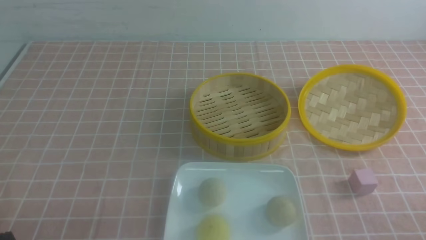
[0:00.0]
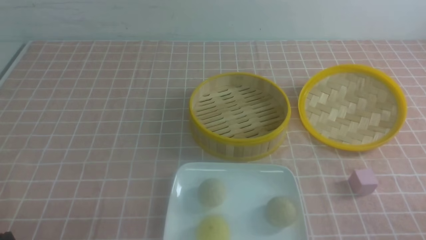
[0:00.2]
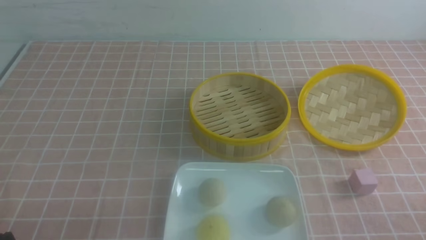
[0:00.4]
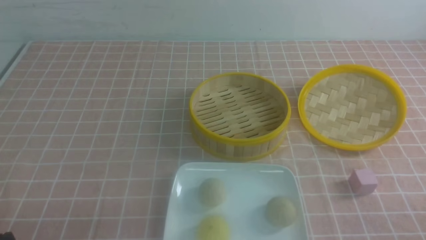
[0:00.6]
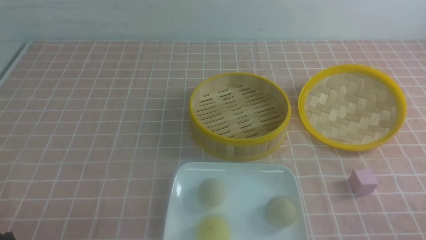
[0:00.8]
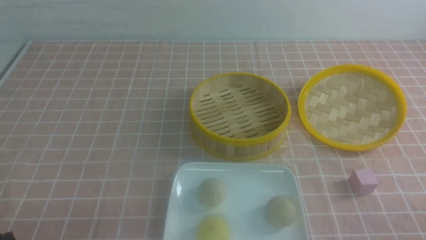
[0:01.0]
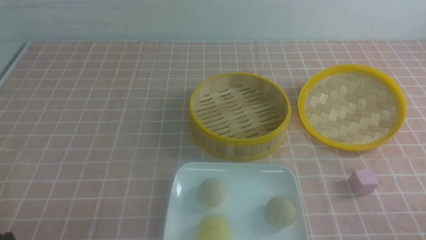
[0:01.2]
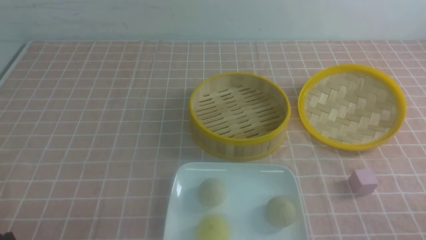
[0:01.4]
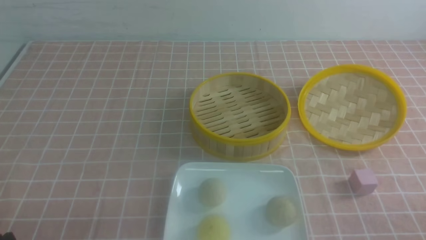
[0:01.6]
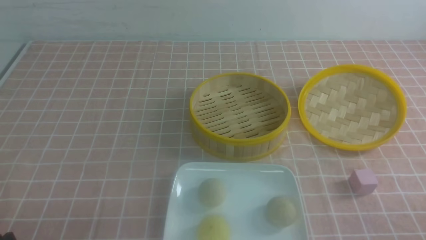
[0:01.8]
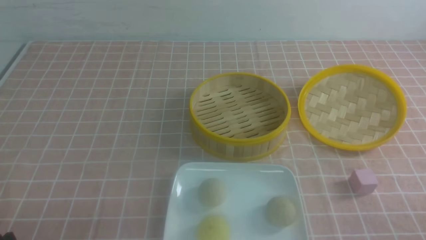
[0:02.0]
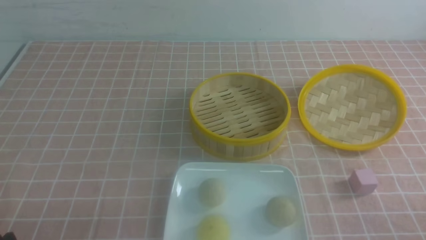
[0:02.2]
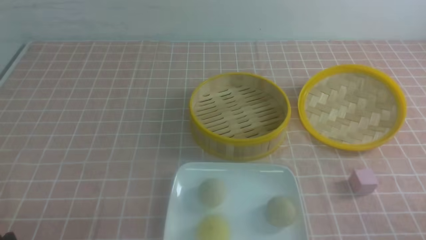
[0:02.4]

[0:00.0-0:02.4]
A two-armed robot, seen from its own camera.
0:00.0 to 0:02.4: The two grippers keep their place.

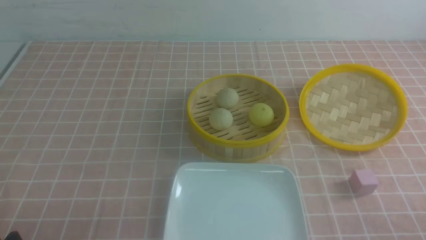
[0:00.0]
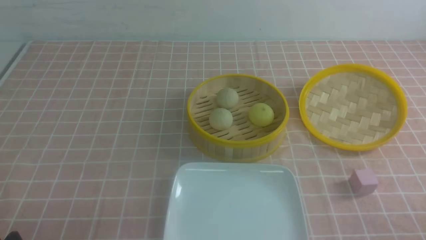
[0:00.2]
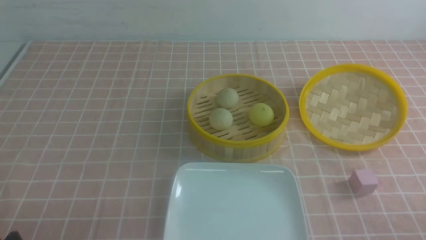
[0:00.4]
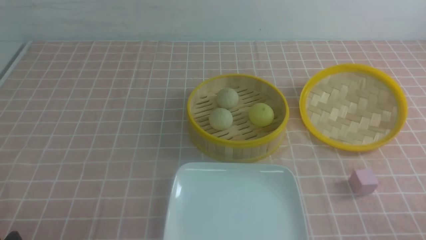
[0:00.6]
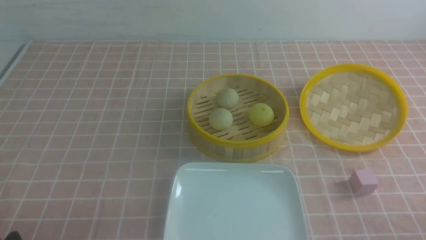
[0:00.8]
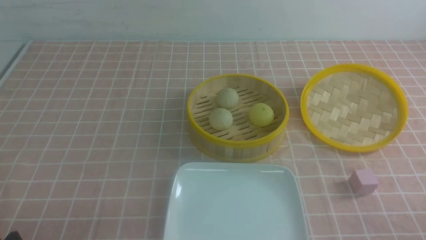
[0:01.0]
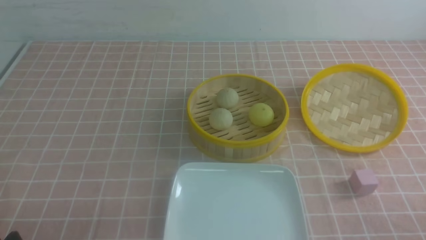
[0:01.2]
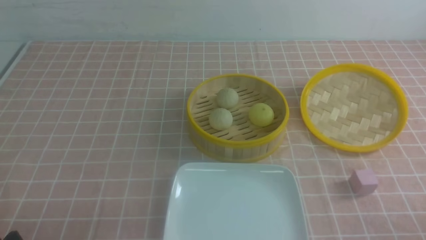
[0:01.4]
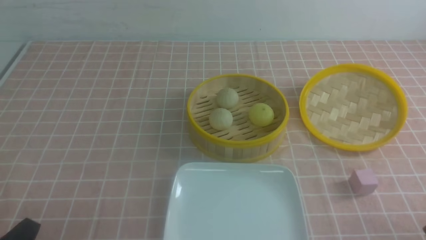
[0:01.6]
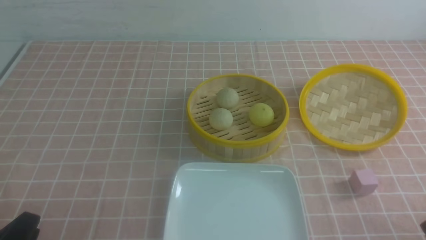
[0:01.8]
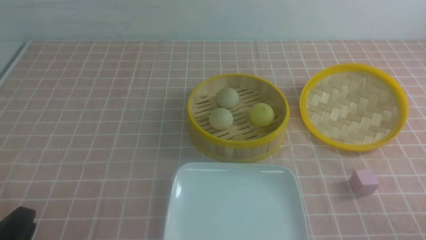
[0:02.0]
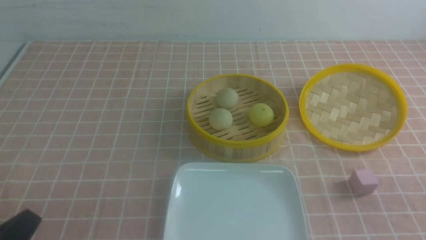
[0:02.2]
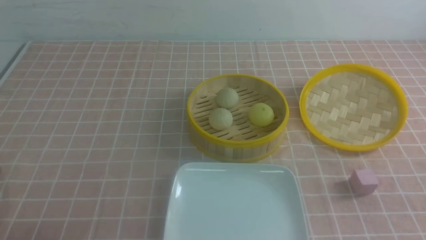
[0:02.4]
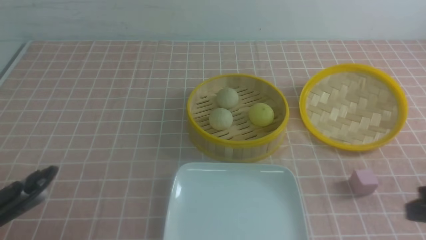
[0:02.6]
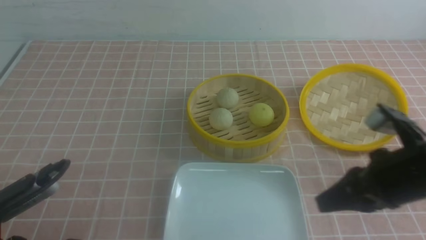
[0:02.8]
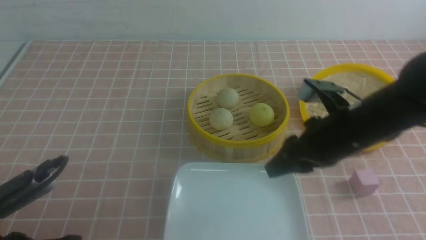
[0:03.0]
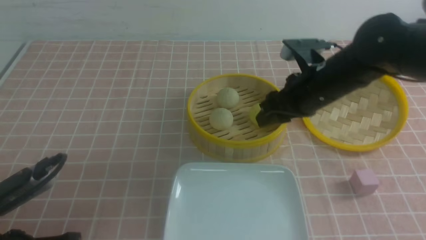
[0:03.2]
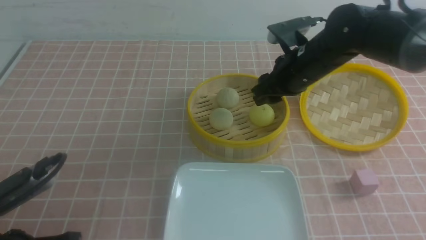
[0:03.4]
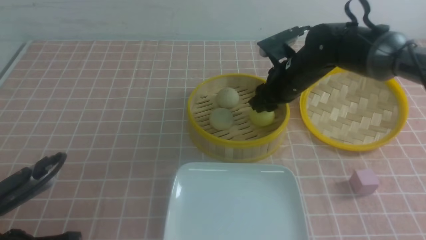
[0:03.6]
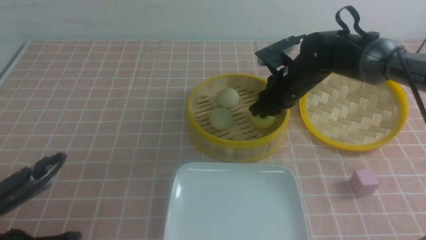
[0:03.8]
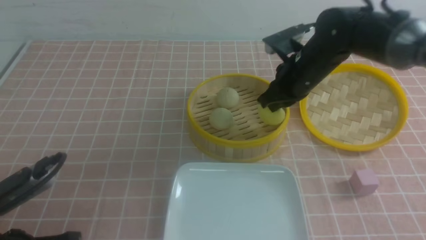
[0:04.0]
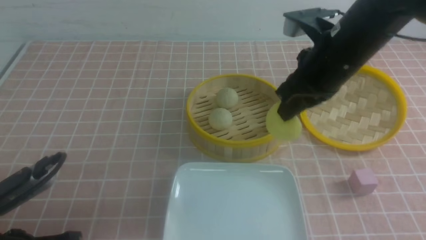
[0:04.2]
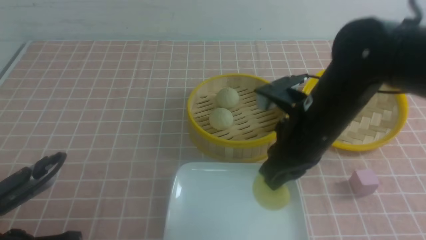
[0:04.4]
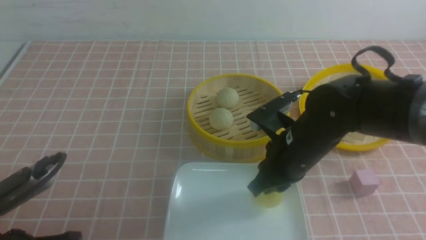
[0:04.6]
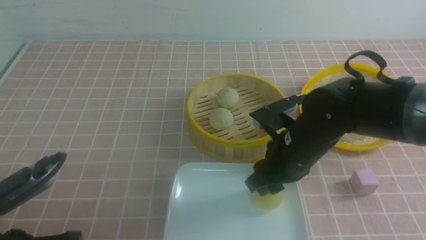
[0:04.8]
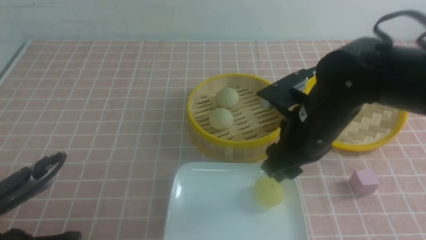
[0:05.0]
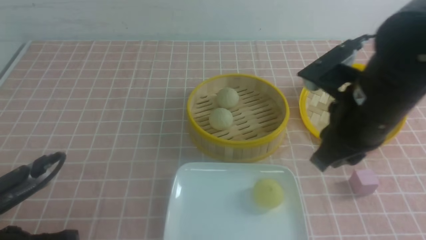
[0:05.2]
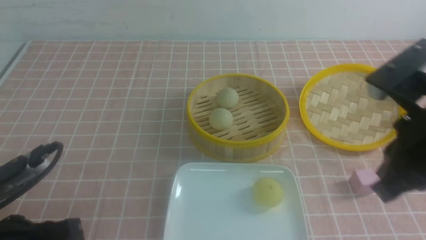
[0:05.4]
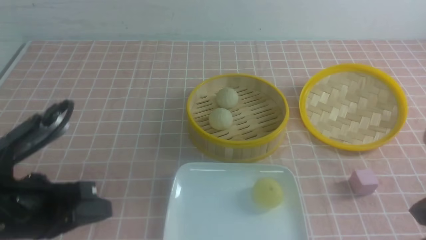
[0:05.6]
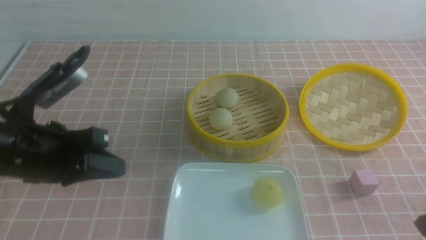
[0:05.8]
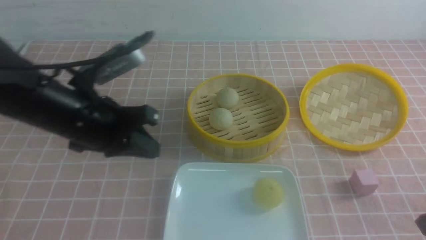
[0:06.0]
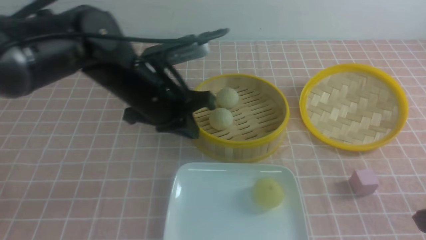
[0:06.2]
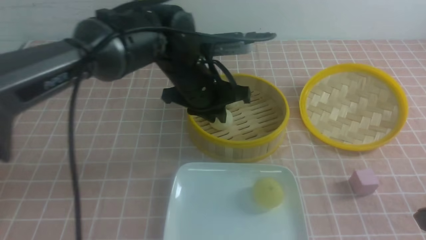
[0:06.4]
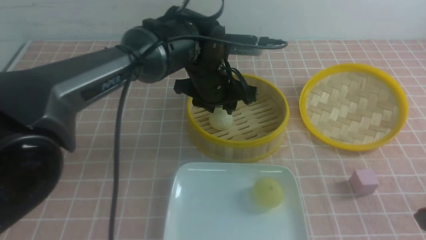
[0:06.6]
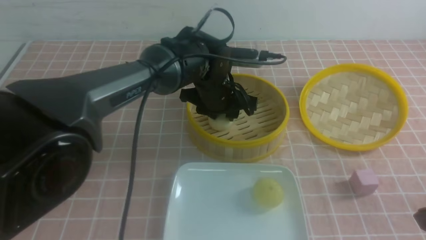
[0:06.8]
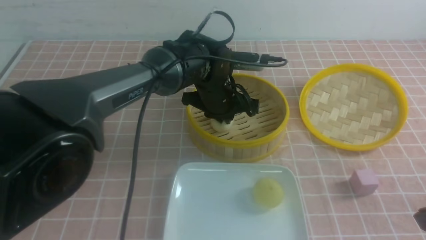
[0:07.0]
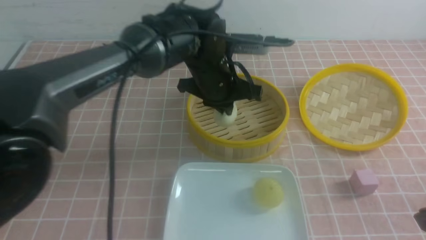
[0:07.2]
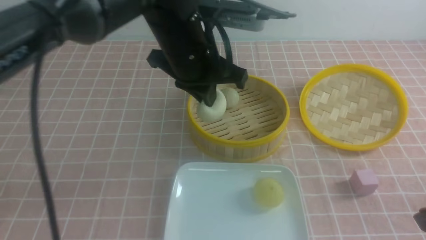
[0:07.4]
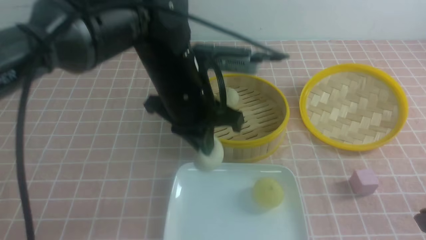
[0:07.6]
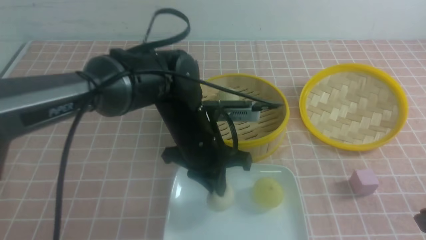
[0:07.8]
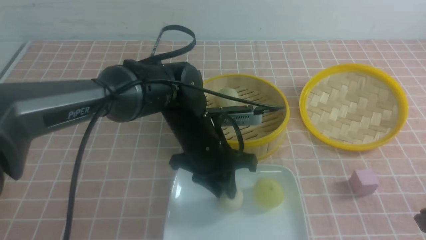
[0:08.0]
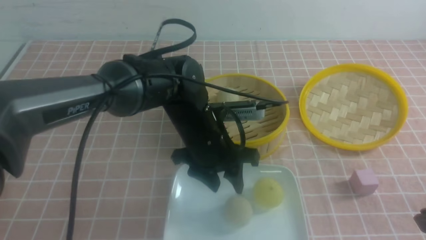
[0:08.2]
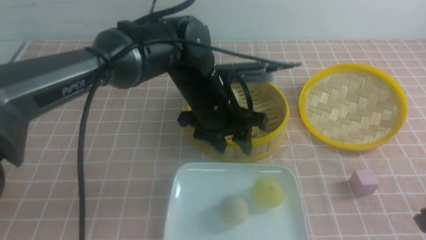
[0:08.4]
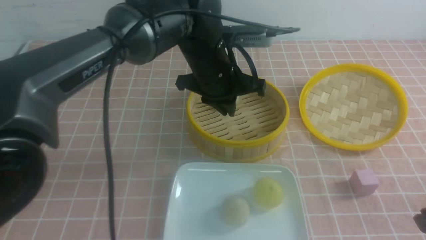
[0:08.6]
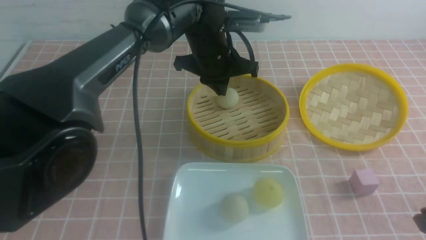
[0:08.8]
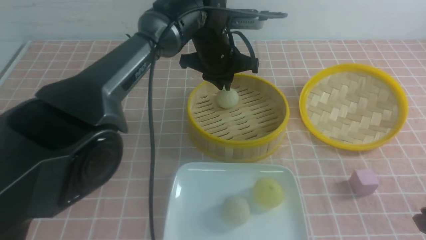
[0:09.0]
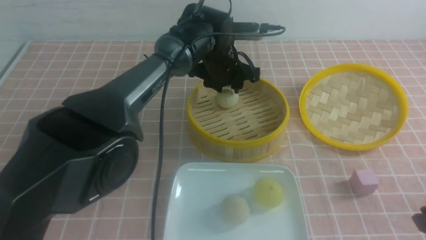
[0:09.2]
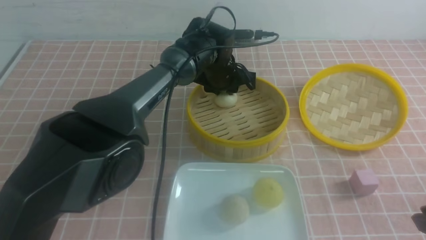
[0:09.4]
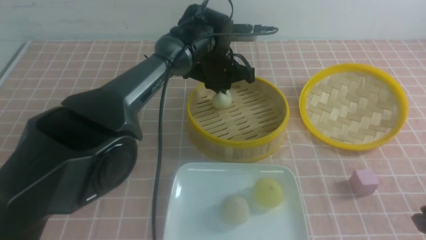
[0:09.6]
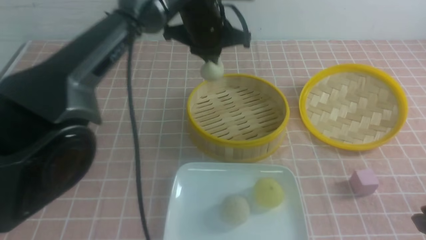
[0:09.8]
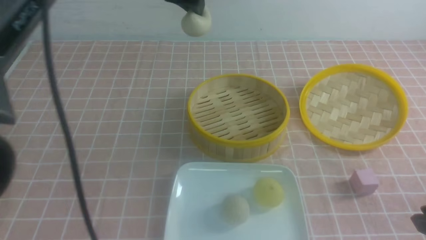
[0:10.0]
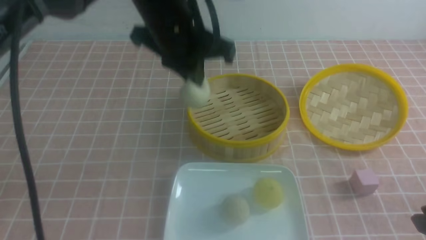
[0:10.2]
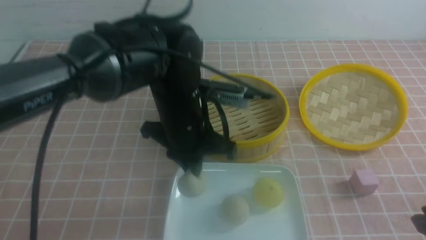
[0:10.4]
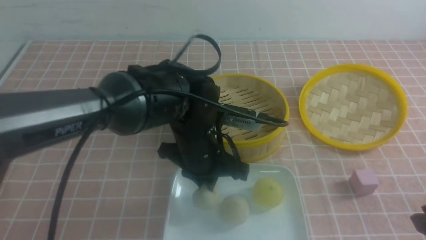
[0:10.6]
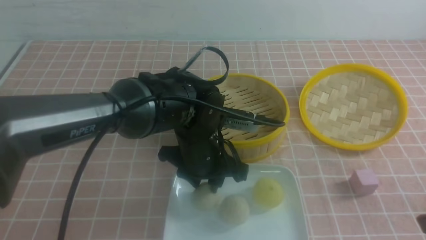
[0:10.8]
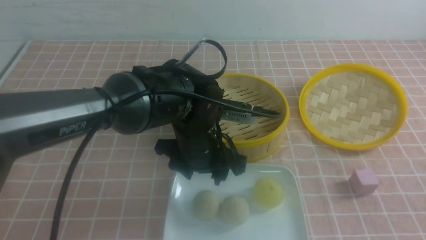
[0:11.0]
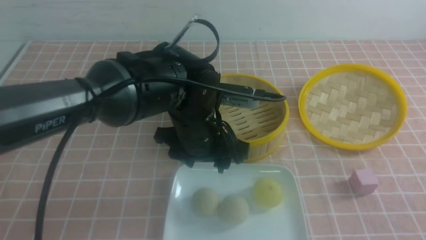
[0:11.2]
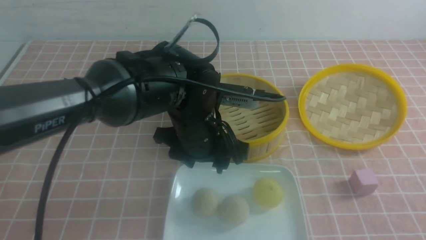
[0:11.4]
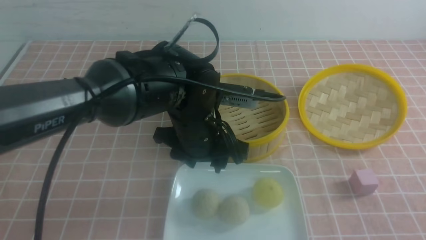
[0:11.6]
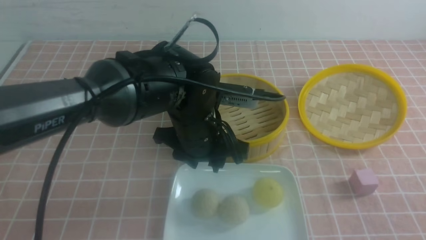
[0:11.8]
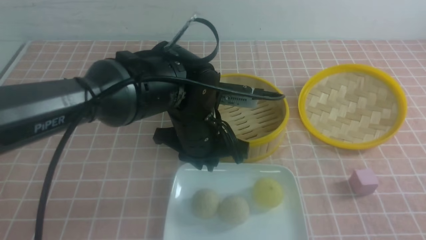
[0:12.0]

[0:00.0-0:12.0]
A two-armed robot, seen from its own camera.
Step, 0:00.0 to 0:03.8: use the right arm to grab the steamed stuffed bun that is closest to it.
Step, 0:04.0 to 0:04.8: use the right arm to put the steamed stuffed bun into the plate.
Step, 0:05.0 to 0:06.8: use the left arm to grab the steamed stuffed bun that is closest to it.
Step, 0:07.2 to 0:08.0: use the left arm to put the steamed stuffed bun into the plate.
Step, 0:08.2 to 0:09.4: use the left arm to grab the steamed stuffed bun that is closest to it.
Step, 0:09.6 to 0:10.8: use the left arm to put the steamed stuffed bun into the plate.
0:01.6 to 0:03.0: The right gripper heads forward and to the left, covering some 25 cm, and closes, then reopens. The left gripper moves forward, some 5 cm, and closes its fingers.
0:03.0 to 0:04.4: The right gripper shifts about 5 cm to the left, reaches some 15 cm forward, then returns, and closes up.
0:04.4 to 0:06.0: The left gripper is displaced forward, to the right and upward by some 20 cm; the right gripper is displaced backward and to the right by some 25 cm, and opens, then closes once more.
0:06.0 to 0:07.6: The left gripper is displaced to the right by approximately 15 cm, and opens, then closes again.
0:07.6 to 0:09.0: The left gripper is displaced forward by some 15 cm, and opens, then closes once more.
0:09.0 to 0:10.4: The left gripper shifts some 15 cm backward.
0:10.4 to 0:12.0: The right gripper is displaced backward by roughly 5 cm, and closes. The left gripper opens, then closes again.

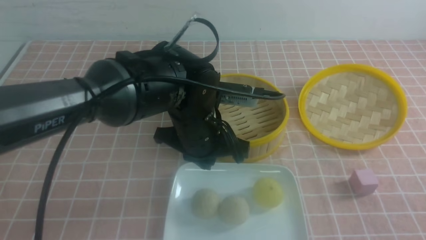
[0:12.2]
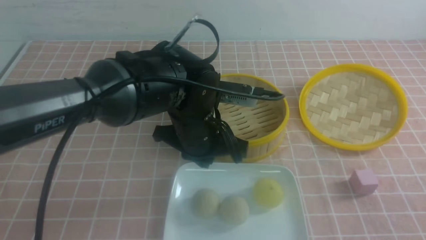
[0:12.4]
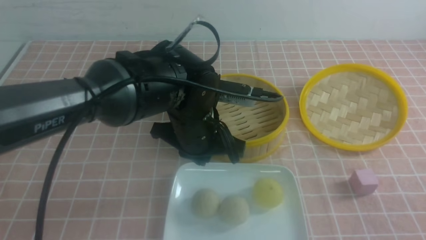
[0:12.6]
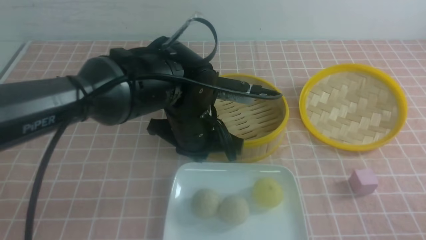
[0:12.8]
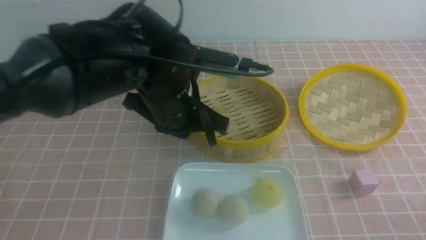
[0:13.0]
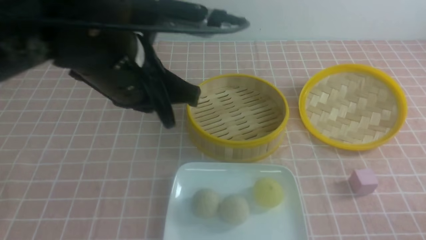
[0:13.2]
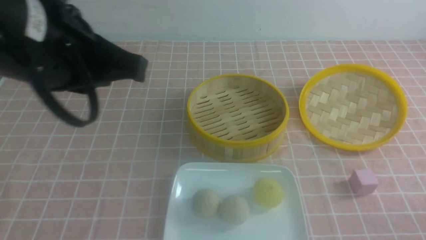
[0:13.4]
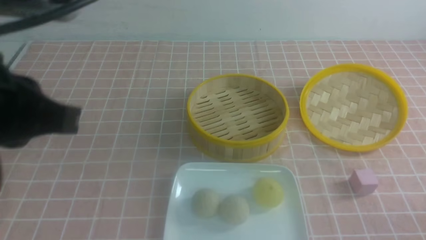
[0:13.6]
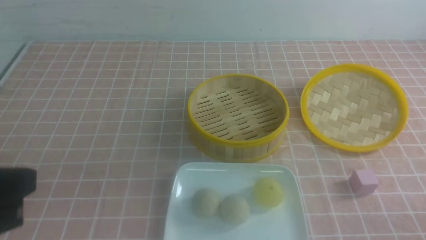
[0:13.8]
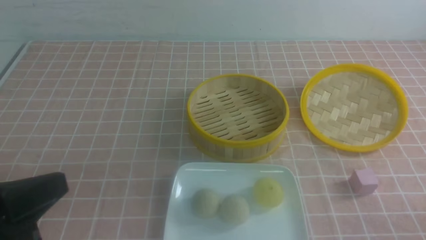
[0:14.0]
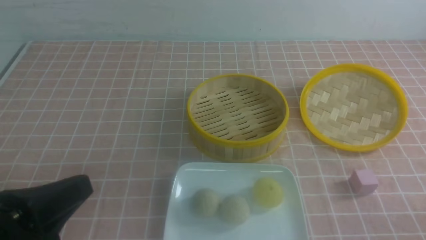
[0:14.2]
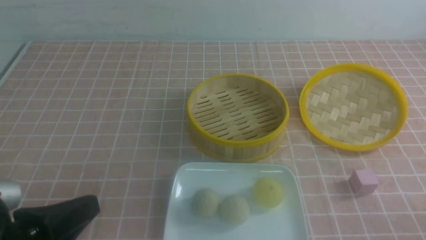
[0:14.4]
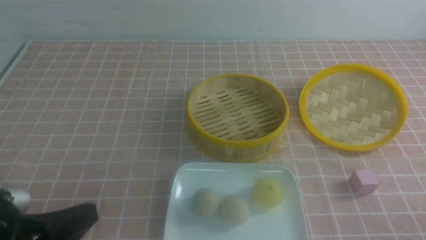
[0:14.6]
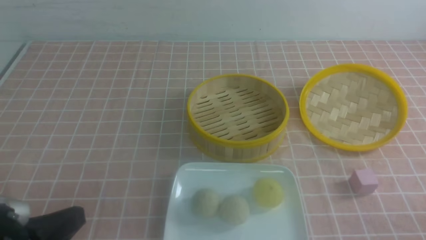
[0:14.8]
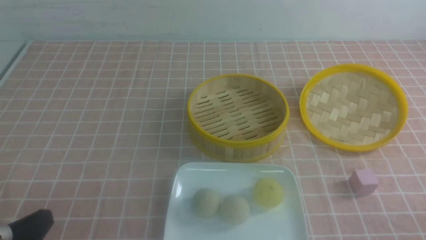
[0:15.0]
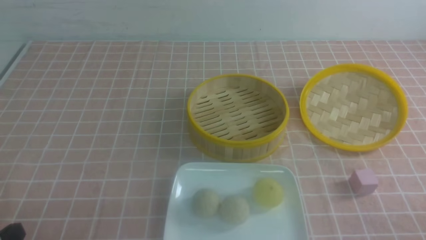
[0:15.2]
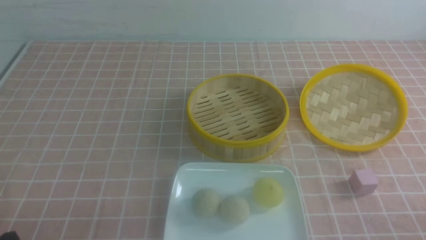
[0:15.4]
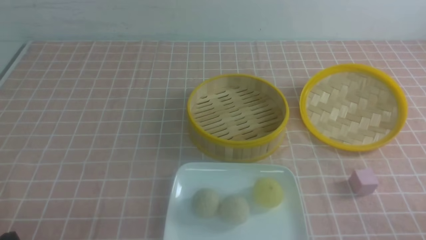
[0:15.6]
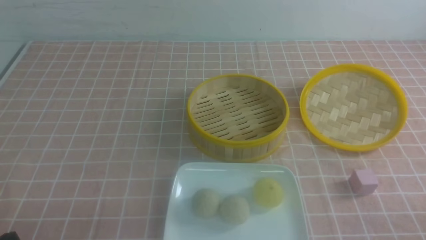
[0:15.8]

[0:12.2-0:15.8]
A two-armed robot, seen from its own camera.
0:12.2 to 0:14.0: The left gripper shifts some 30 cm backward and to the left; the right gripper moves downward, about 10 cm.
0:14.0 to 0:15.8: The left gripper is displaced downward by about 15 cm.
